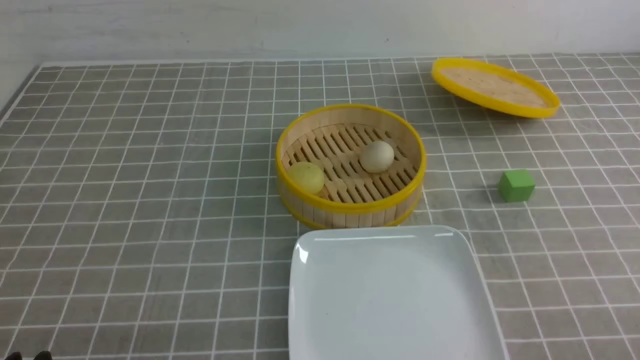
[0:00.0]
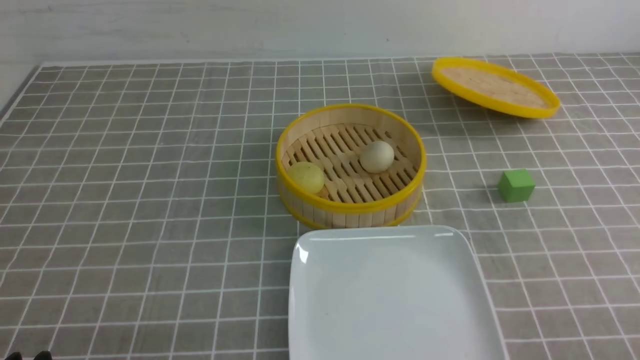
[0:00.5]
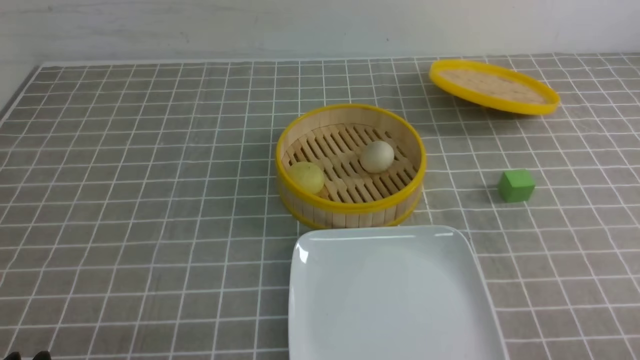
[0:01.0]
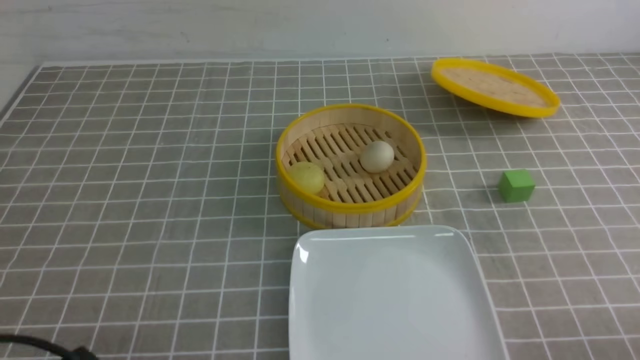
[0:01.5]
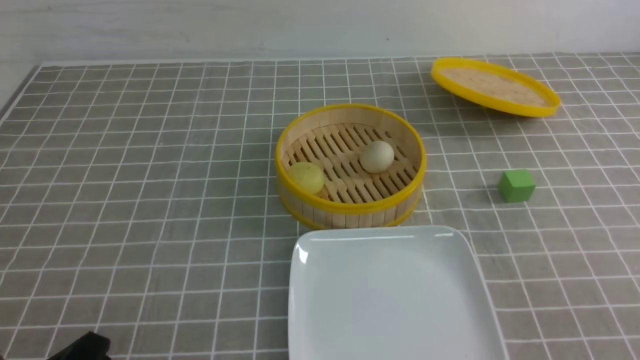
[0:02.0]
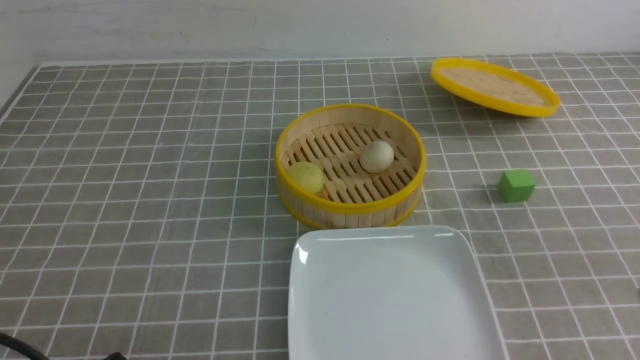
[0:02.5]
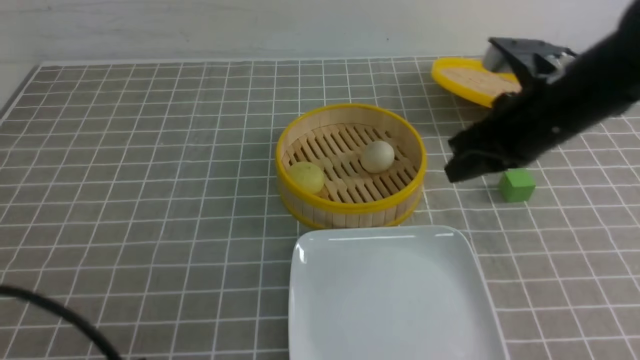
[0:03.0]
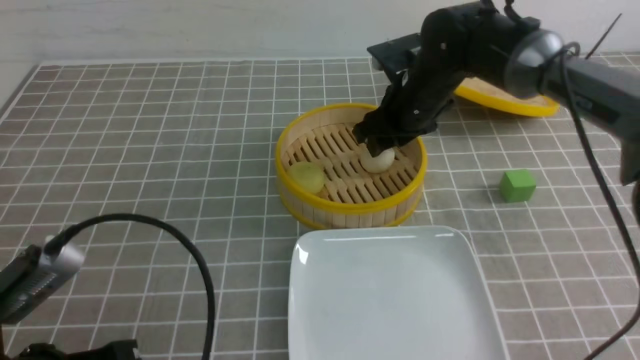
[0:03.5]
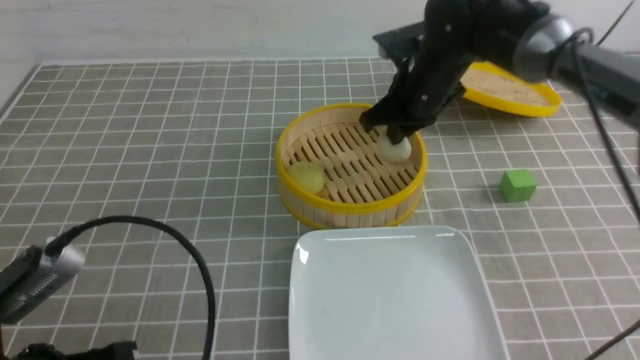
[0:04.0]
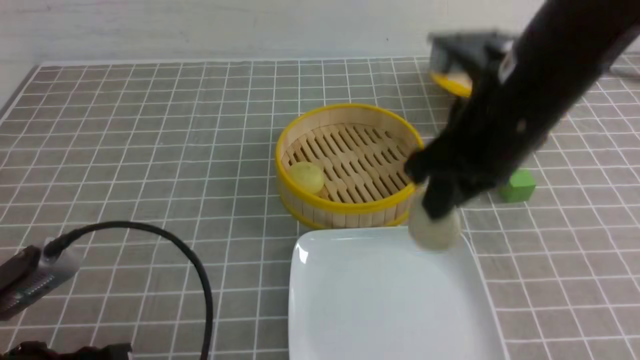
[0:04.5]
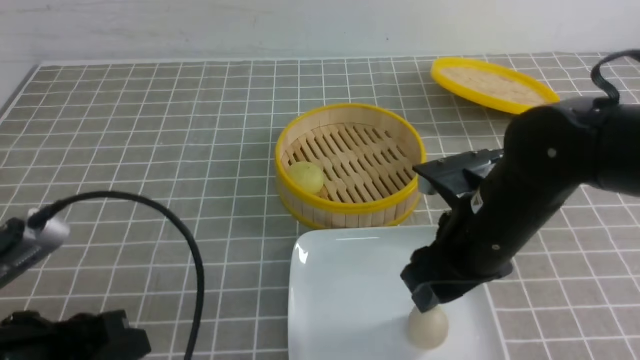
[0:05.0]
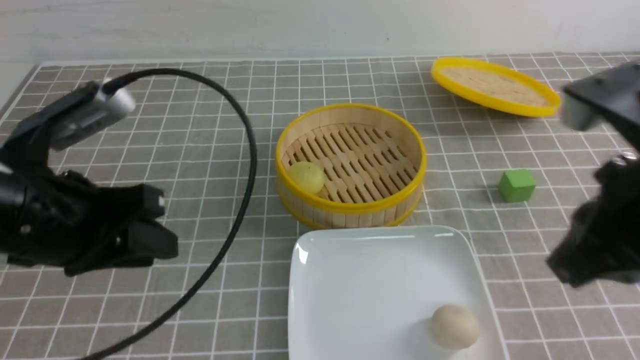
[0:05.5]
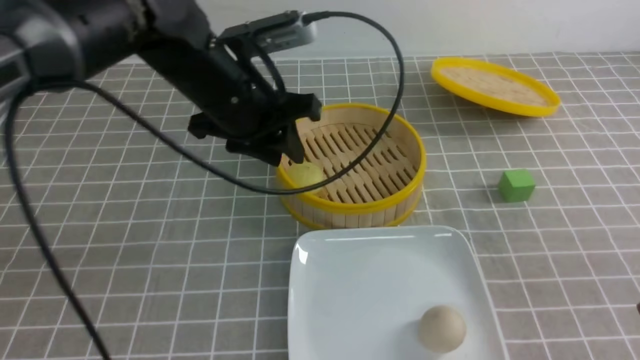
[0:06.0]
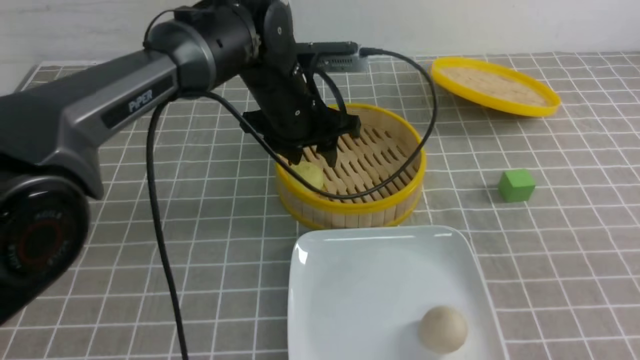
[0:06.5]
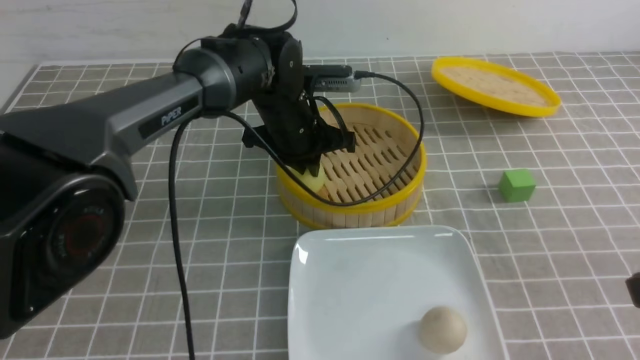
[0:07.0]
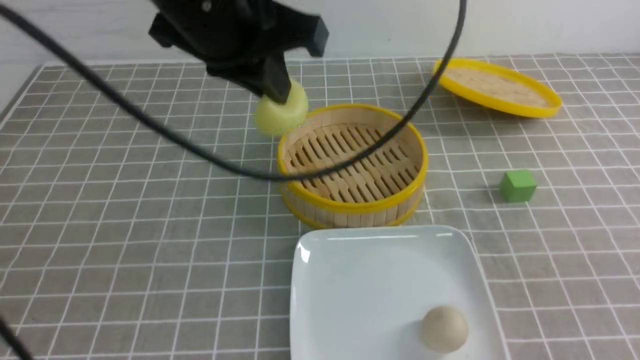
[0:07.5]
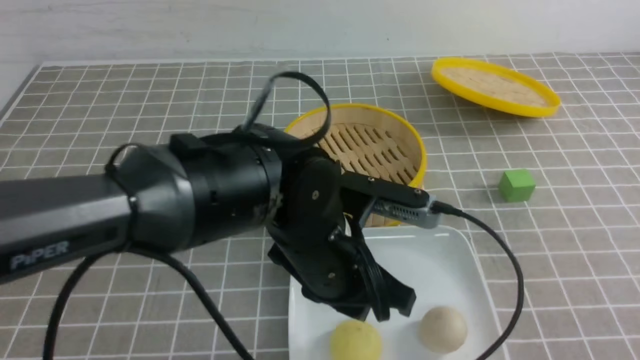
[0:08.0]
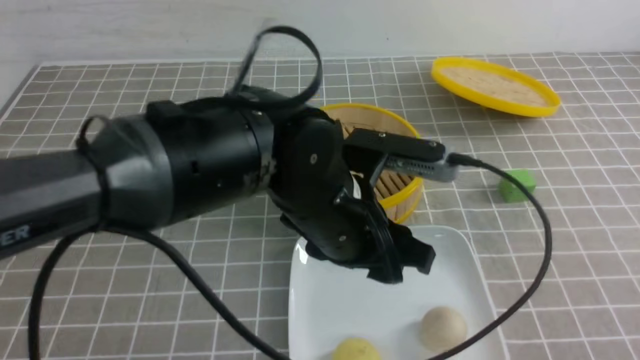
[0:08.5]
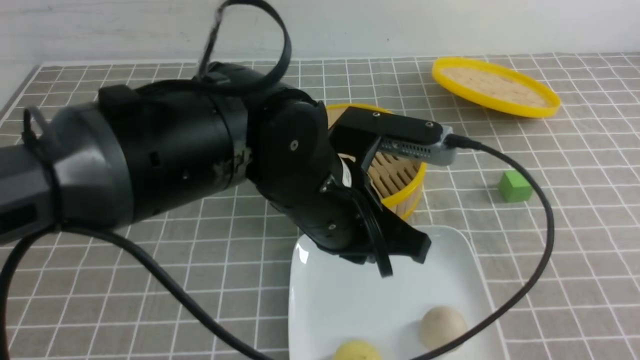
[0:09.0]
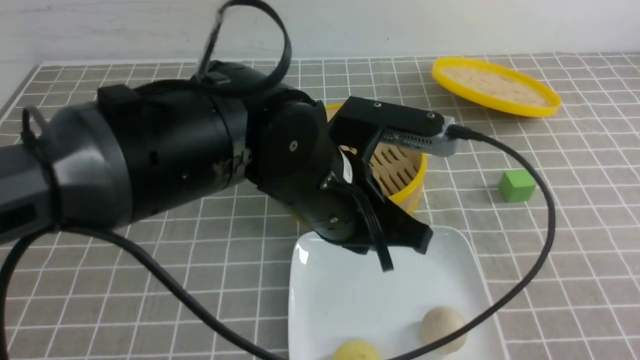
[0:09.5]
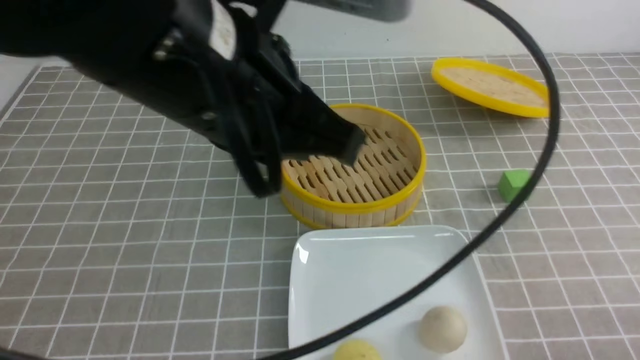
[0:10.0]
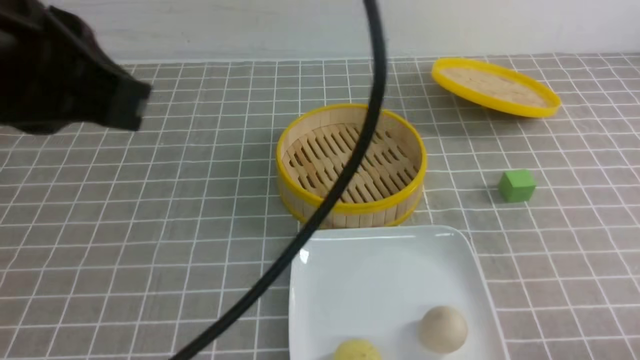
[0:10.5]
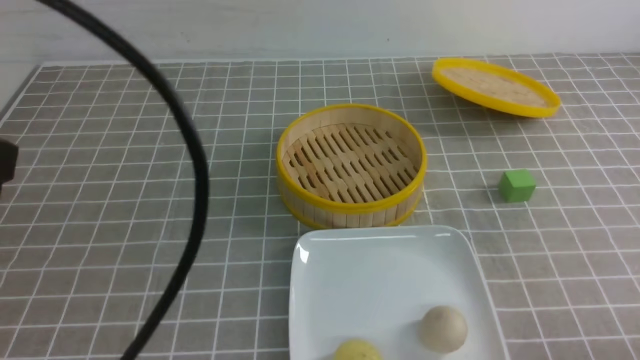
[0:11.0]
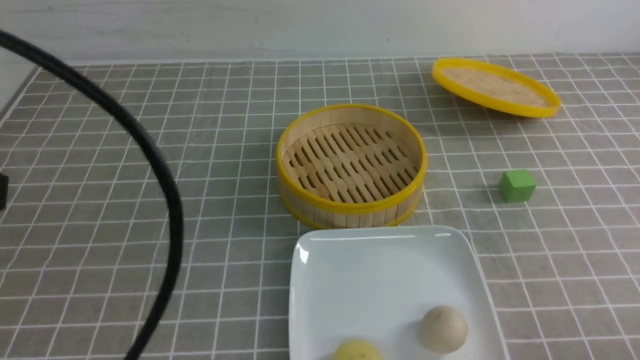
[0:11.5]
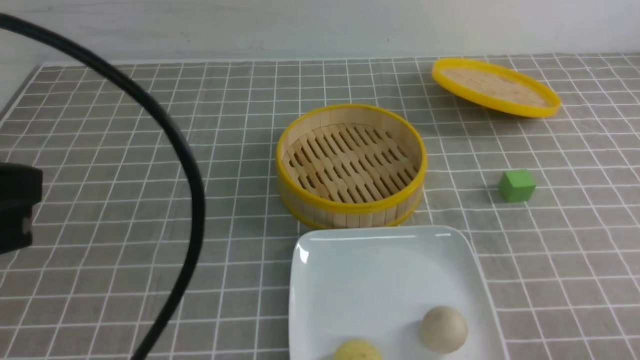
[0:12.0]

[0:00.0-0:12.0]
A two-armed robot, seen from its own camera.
Step, 0:00.0 to 0:03.5: use the right arm to grab the steamed stuffed bun that is closest to it.
Step, 0:04.5 to 0:05.0: use the right arm to put the steamed stuffed bun into the plate.
Step, 0:05.5 to 0:07.0: use the left arm to grab the steamed stuffed bun that is closest to it.
Step, 0:07.5 to 0:08.0: use the left arm to put the steamed stuffed bun into the plate.
0:02.0 to 0:04.0: The right gripper is displaced forward and to the left by roughly 40 cm, and opens and closes again, while the left gripper moves upward, roughly 5 cm.
0:04.0 to 0:06.0: The right gripper heads backward and to the right, covering about 35 cm, and opens, then closes once more. The left gripper travels forward and to the right by roughly 30 cm, and opens up.
0:06.0 to 0:08.0: The left gripper travels backward, to the right and downward by about 15 cm, and closes, then opens again. Meanwhile the right gripper is displaced backward and to the right by approximately 10 cm.
0:08.0 to 0:10.0: The right gripper shifts roughly 15 cm downward. Meanwhile the left gripper heads upward, covering some 20 cm, and closes its fingers.
0:10.0 to 0:12.0: The left gripper travels to the left and backward by roughly 15 cm.

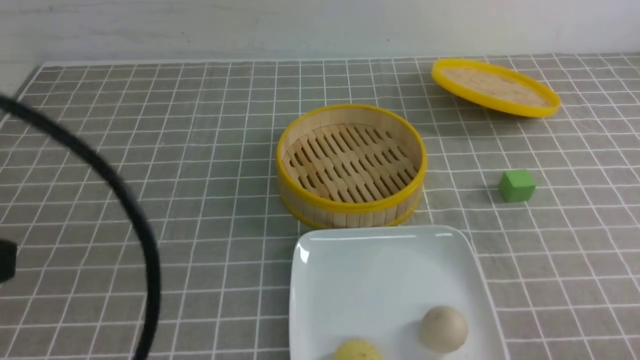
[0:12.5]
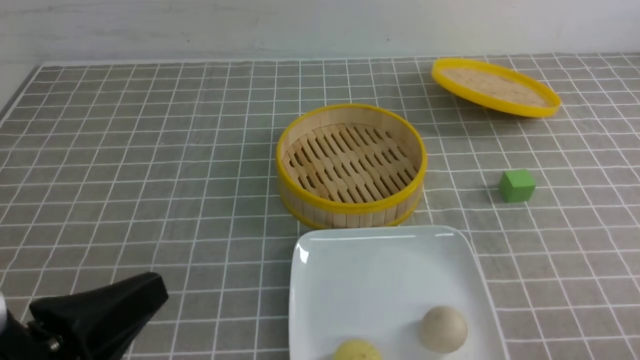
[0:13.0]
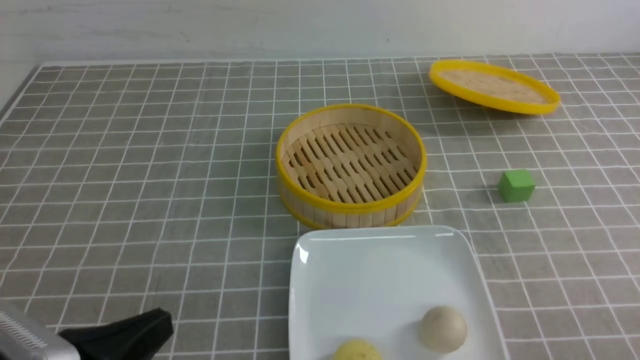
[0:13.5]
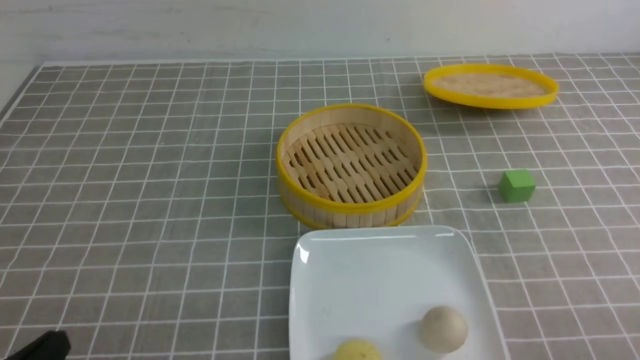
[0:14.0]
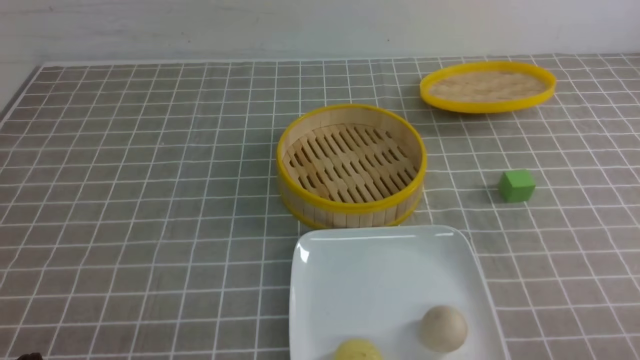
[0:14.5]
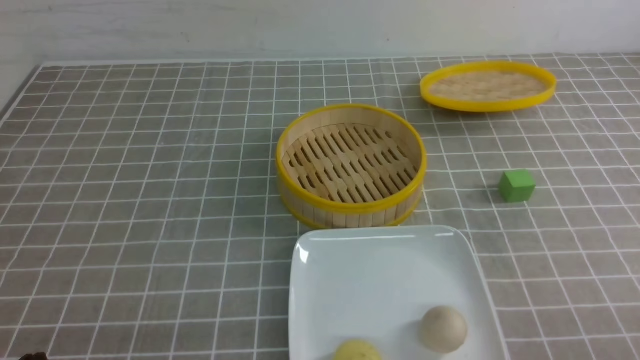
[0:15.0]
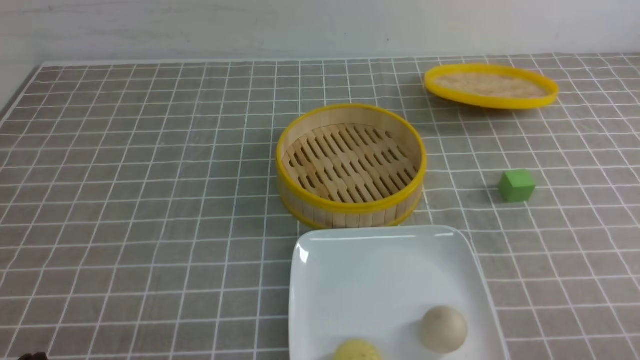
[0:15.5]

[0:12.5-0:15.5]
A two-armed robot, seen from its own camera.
0:12.5 to 0:14.0: The left gripper is displaced downward by about 20 cm.
